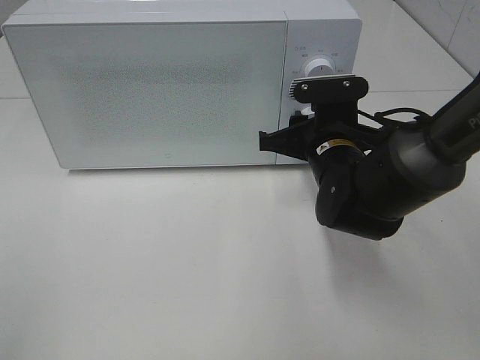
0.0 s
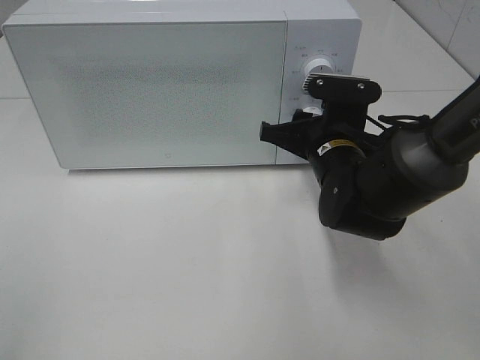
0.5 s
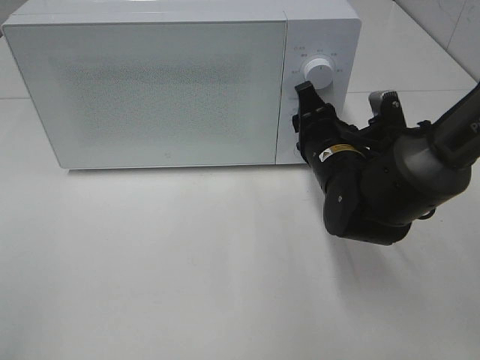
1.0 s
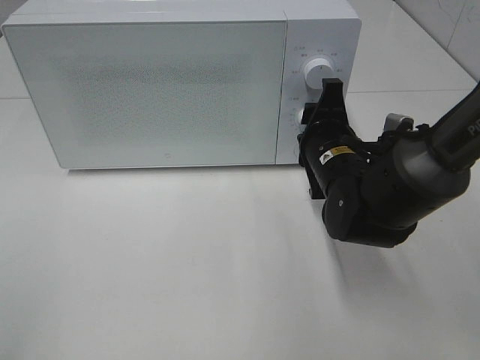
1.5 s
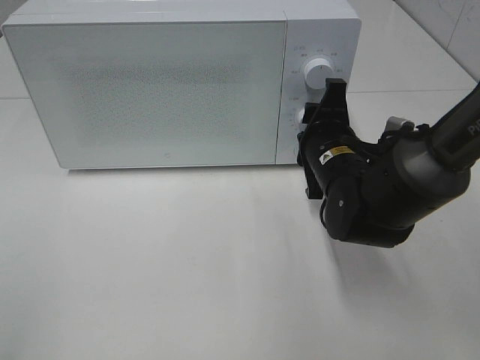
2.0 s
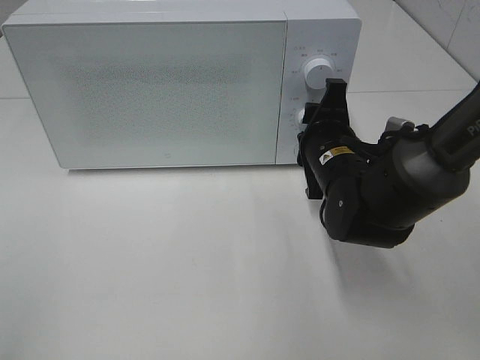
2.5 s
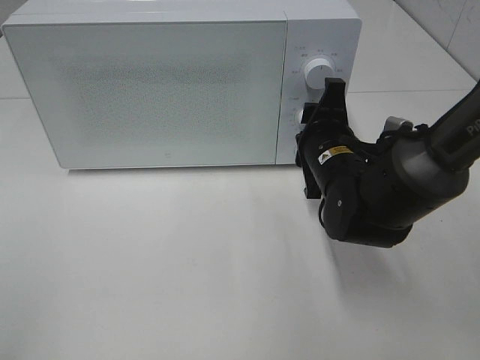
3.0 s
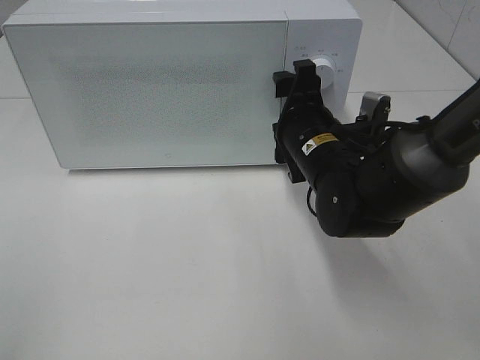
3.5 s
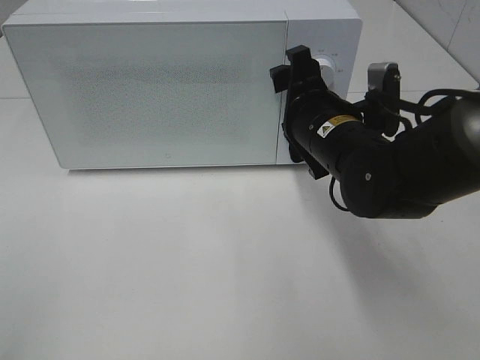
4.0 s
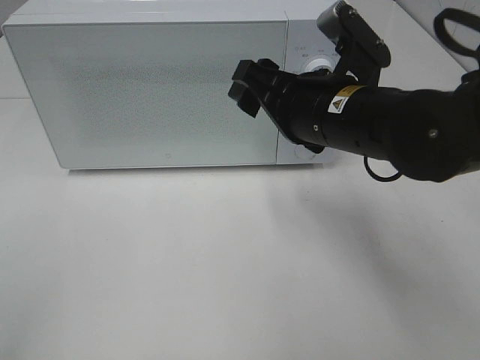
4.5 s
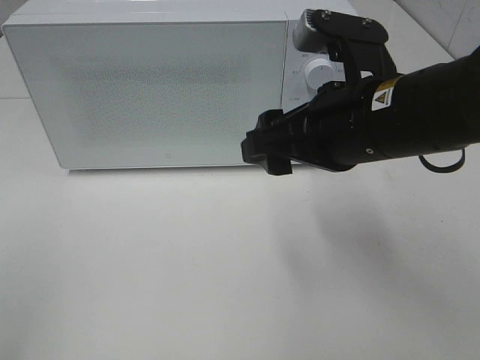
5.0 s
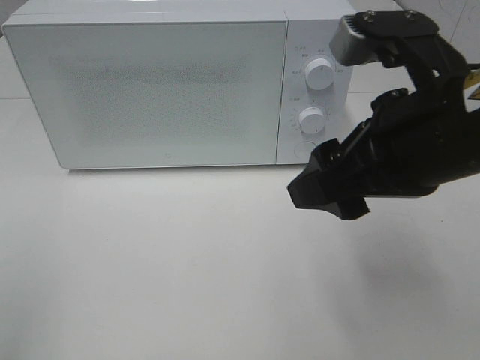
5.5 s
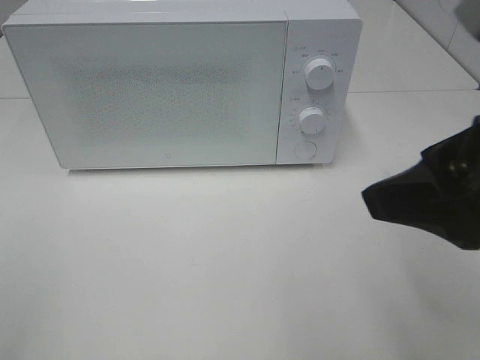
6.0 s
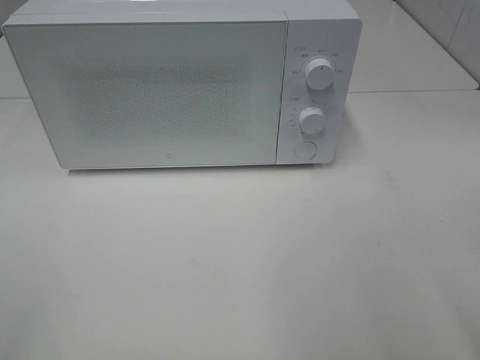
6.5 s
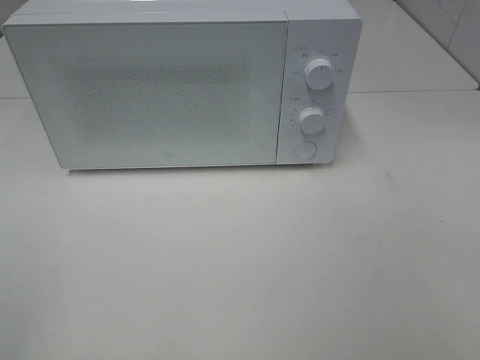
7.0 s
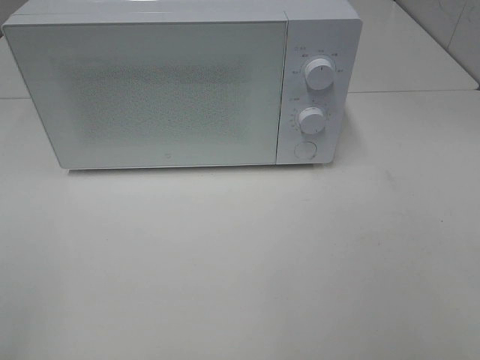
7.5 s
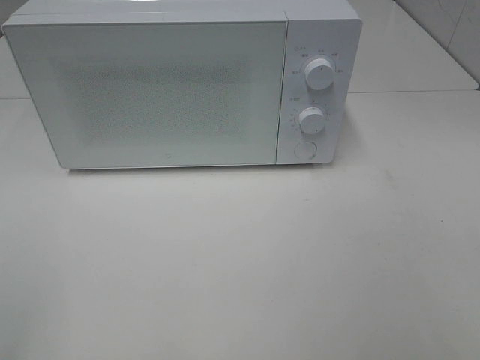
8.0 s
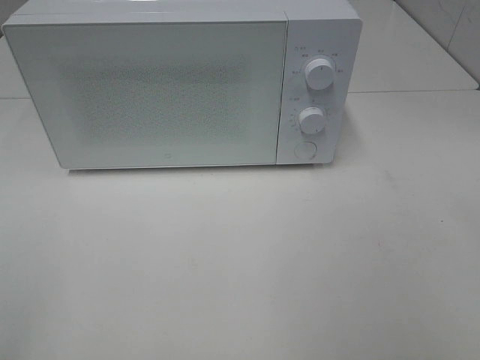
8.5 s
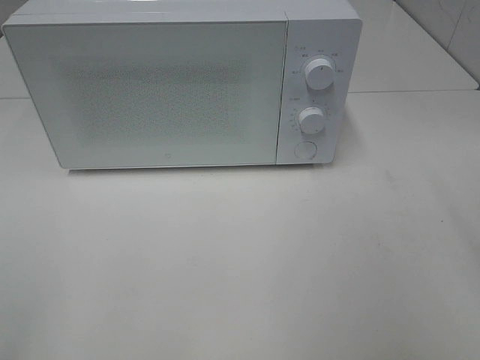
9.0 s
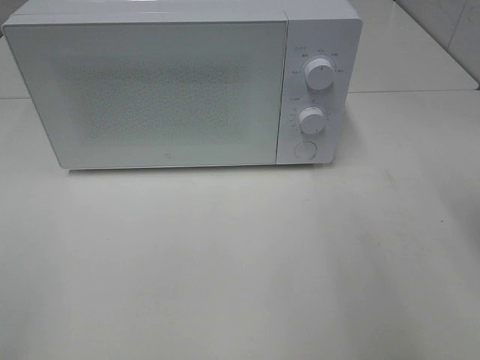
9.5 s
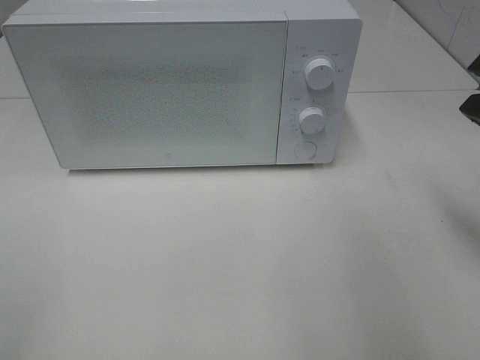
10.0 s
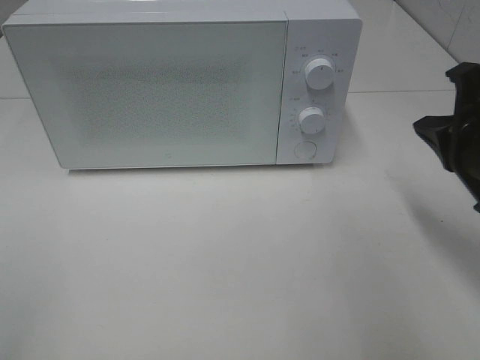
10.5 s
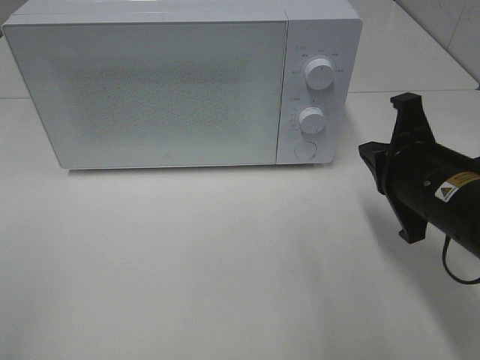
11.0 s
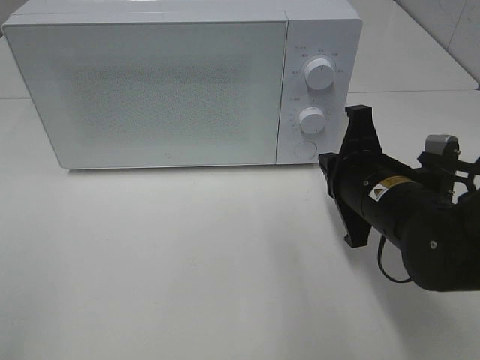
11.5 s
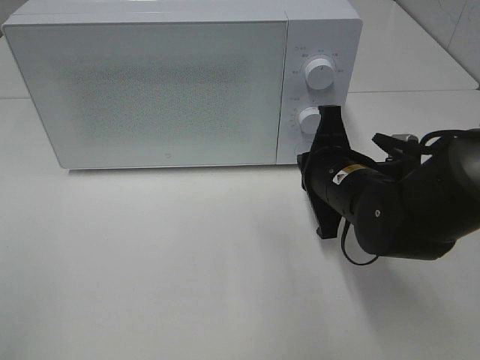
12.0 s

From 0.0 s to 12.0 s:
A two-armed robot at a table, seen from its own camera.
Task of the whole recording: Heat the burger.
Step, from 0.0 s to 3.0 s: Right hand: twist timer button.
From 2.0 s to 4.0 s: The right gripper is displaced upward by about 5 cm, and opens.
From 4.0 s to 6.0 s: The right gripper heads backward, upward and to the right, covering approximately 25 cm.
From 6.0 s to 8.0 s: The right gripper moves backward and to the right, some 15 cm.
From 8.0 s to 10.0 s: The right gripper travels forward by approximately 20 cm, and closes.
From 10.0 s to 12.0 s: The right gripper goes some 20 cm to the left, downward and forward.

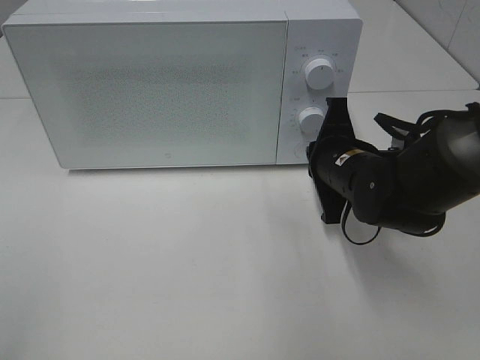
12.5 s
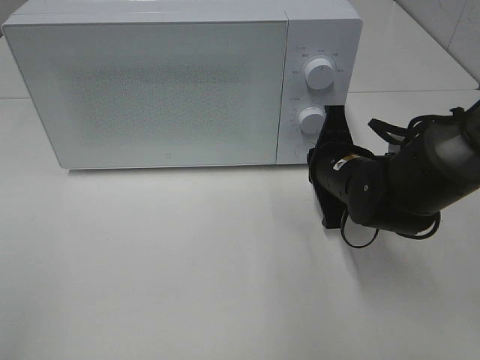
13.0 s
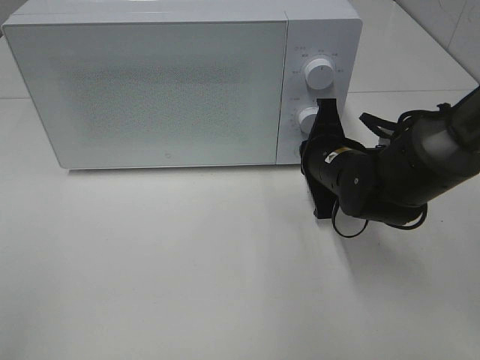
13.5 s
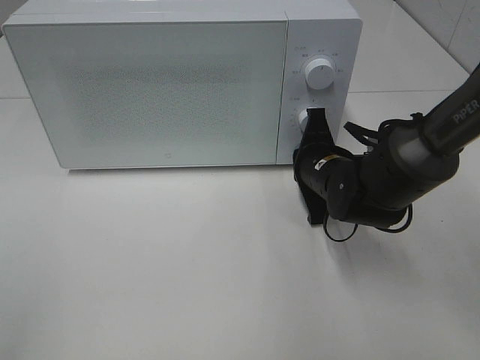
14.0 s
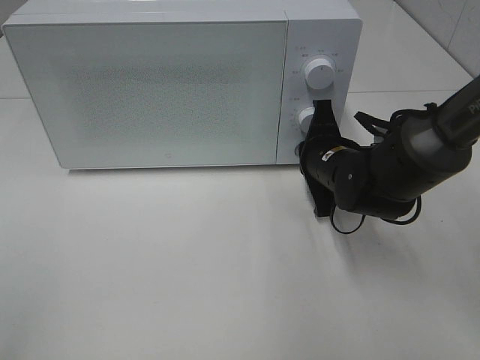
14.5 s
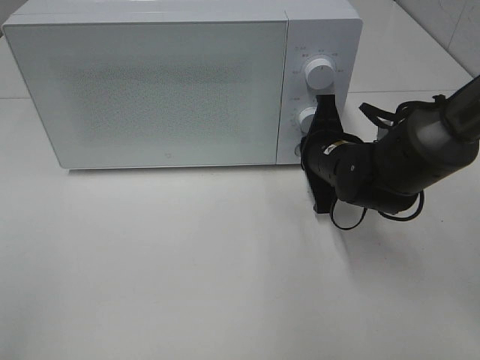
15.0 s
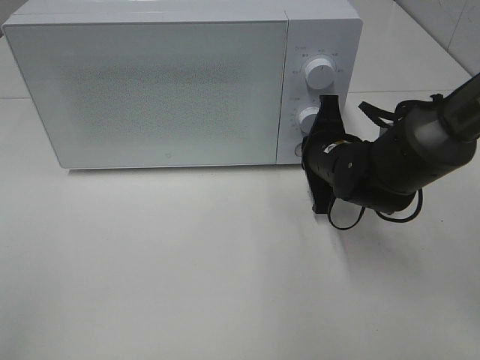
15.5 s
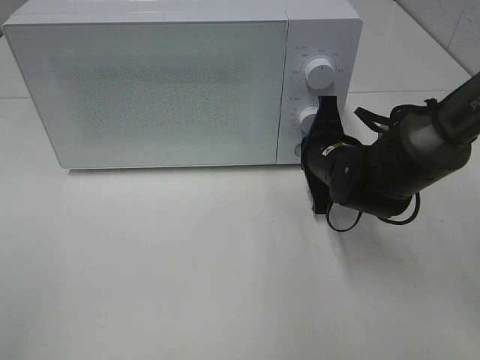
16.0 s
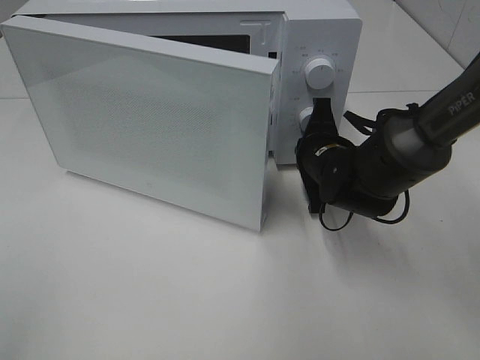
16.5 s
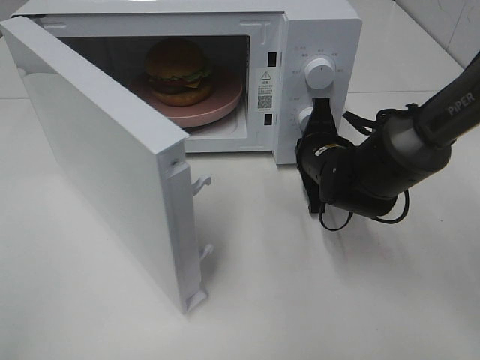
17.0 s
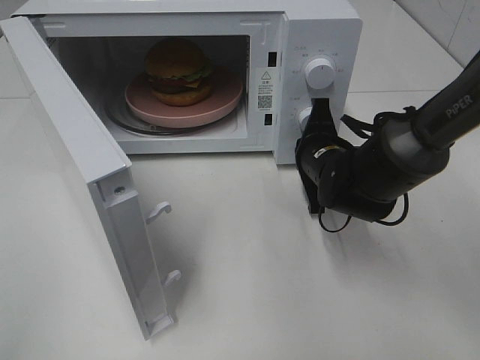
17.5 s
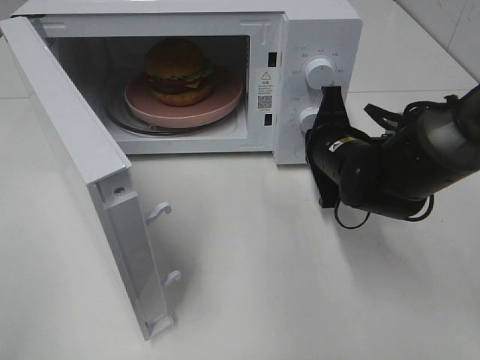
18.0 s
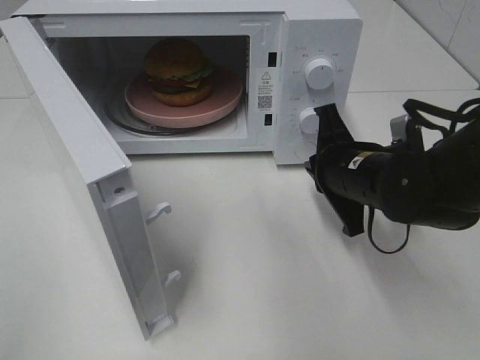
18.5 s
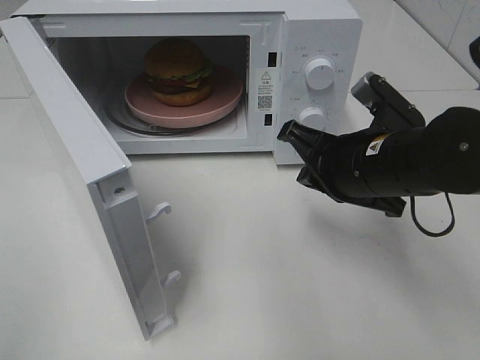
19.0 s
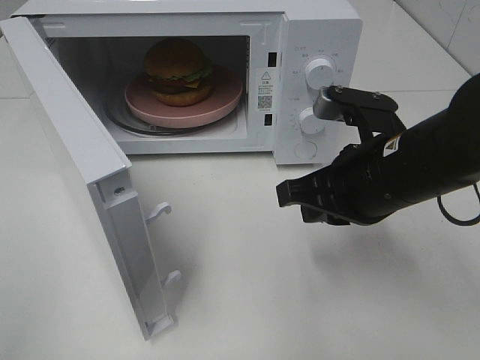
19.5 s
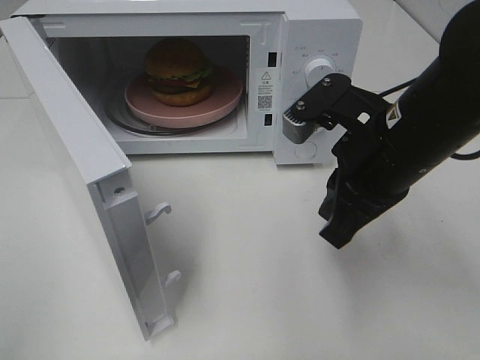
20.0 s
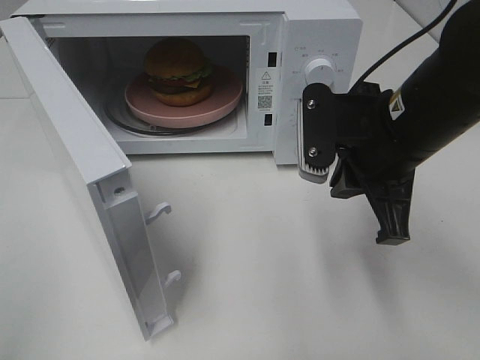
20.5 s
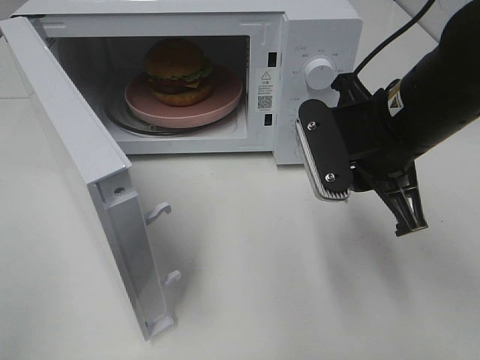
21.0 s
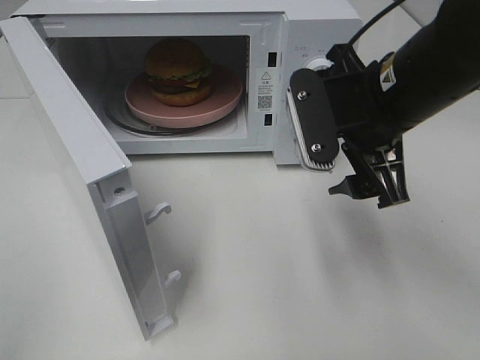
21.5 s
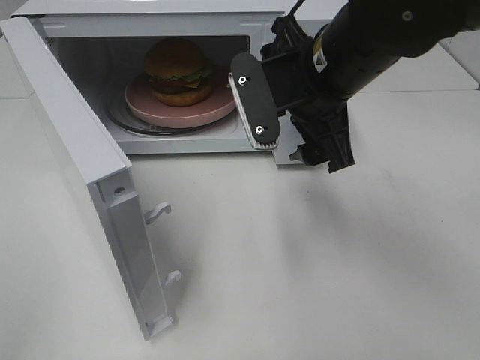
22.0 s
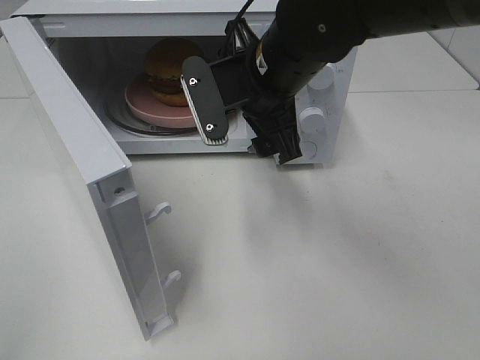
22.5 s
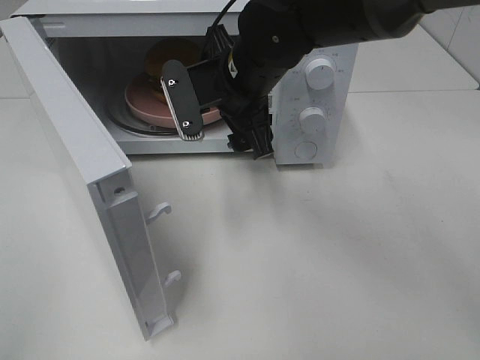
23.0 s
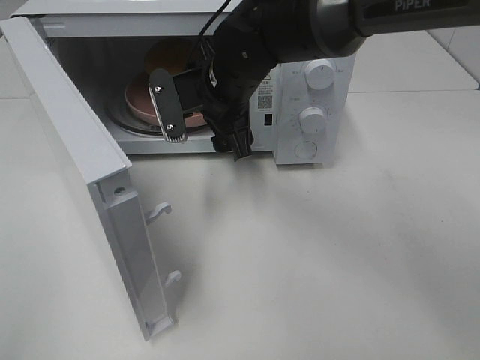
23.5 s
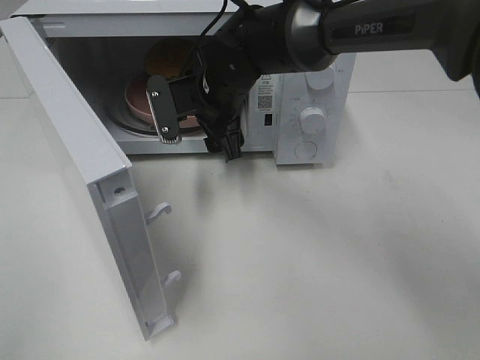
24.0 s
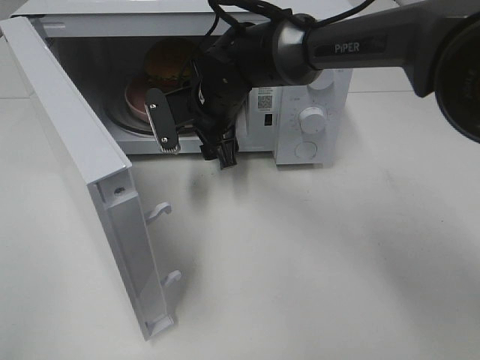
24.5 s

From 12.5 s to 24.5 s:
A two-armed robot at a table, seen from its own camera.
Task of the whole recording: Heat the burger.
Step, from 12.5 s to 18.0 s: Right hand: press the switch.
From 12.5 s to 16.5 s: The grippers stay close to where they were, moving slightly.
From 16.5 s to 18.5 s: The right gripper shifts approximately 5 cm backward.
From 18.5 s to 20.5 s: The right gripper is displaced upward by roughly 10 cm.
From 20.5 s to 22.5 s: The right gripper is displaced to the left and forward by some 15 cm, and opens its fingers.
From 22.5 s to 24.5 s: The right gripper moves forward, downward and to the left, approximately 15 cm.

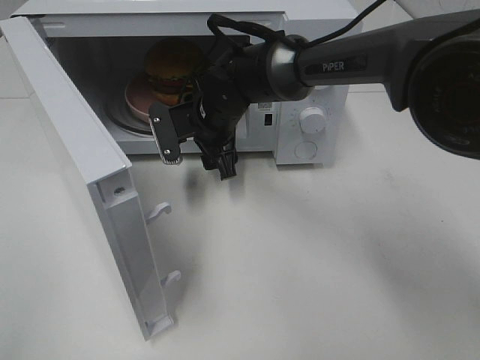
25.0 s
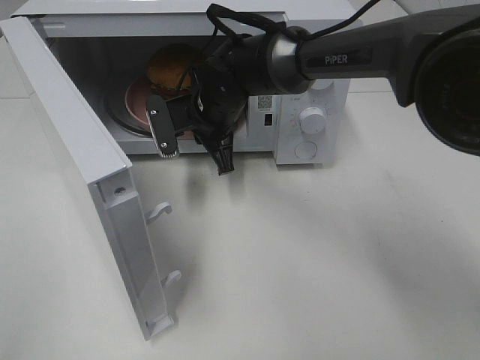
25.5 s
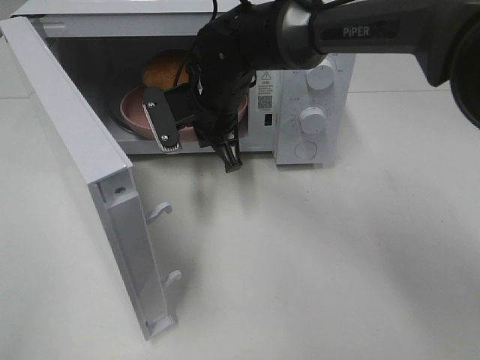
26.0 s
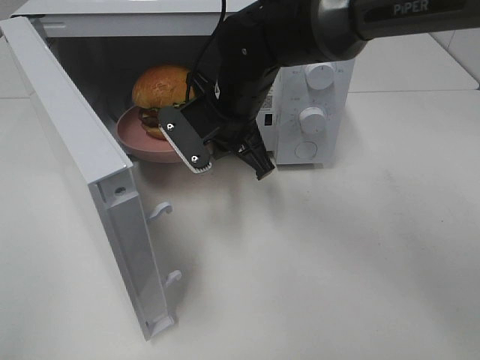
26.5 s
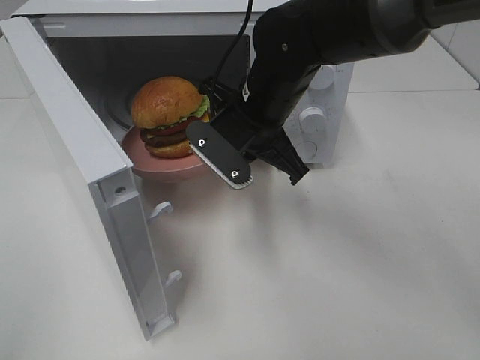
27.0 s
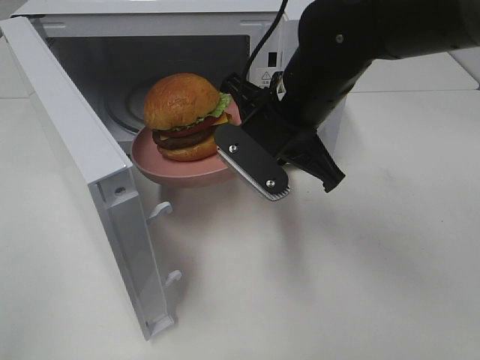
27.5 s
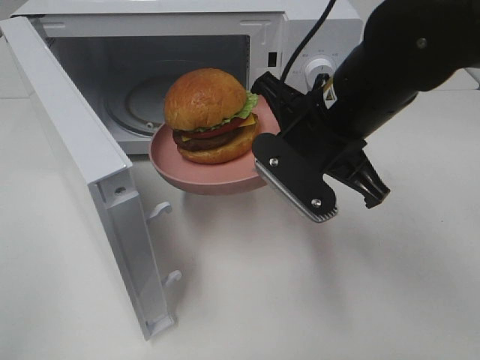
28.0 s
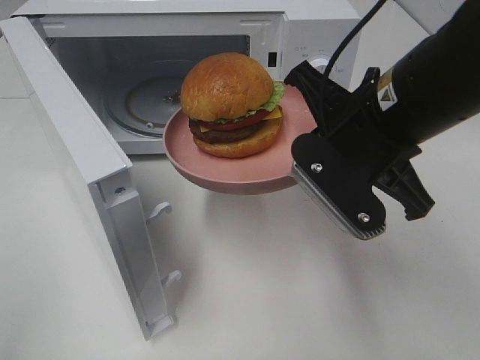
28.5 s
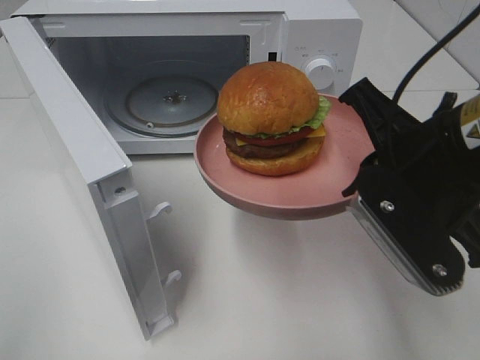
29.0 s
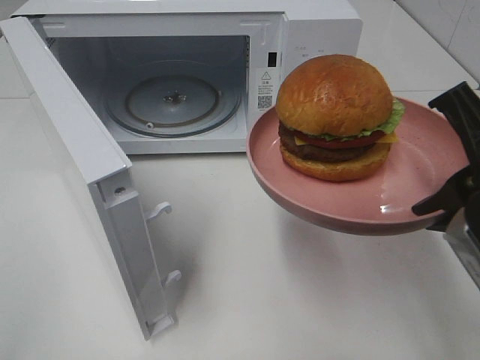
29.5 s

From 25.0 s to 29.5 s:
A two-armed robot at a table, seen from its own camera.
Task of the whole recording: Heat the burger.
From 25.0 s to 27.0 s: The right gripper is displaced backward, upward and to the right by some 10 cm, and closes up.
From 27.0 s to 29.5 s: The right gripper shifts approximately 25 cm backward, to the right and upward.
